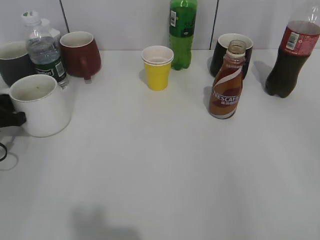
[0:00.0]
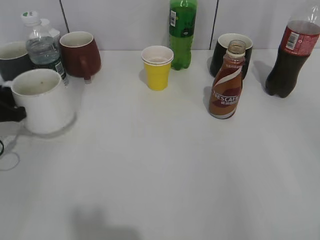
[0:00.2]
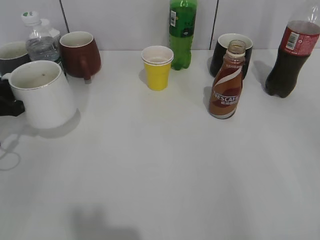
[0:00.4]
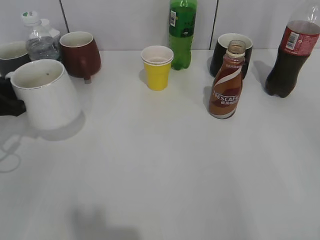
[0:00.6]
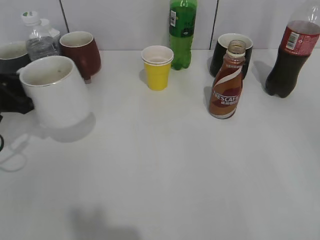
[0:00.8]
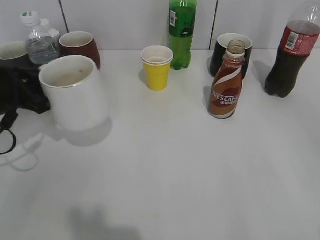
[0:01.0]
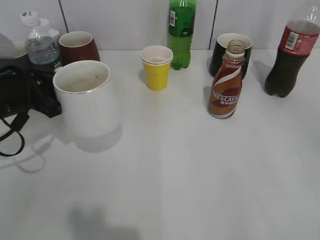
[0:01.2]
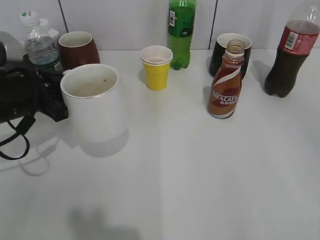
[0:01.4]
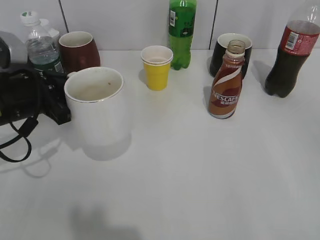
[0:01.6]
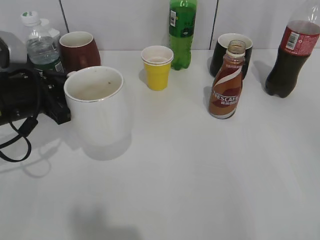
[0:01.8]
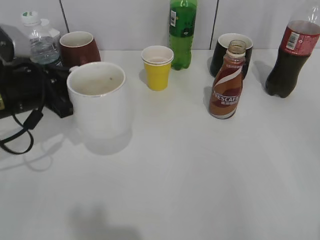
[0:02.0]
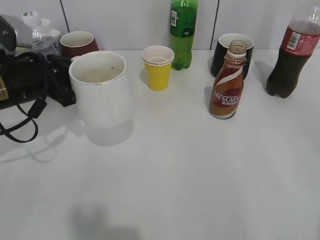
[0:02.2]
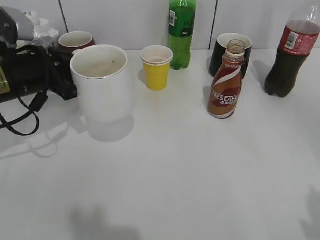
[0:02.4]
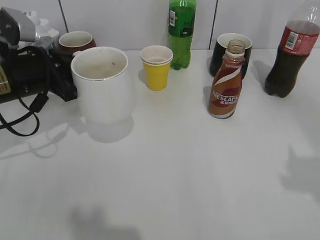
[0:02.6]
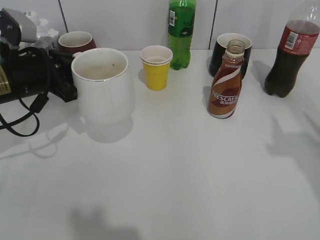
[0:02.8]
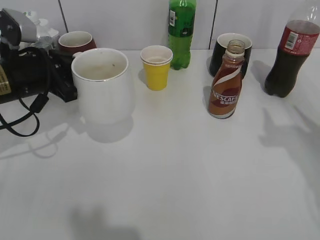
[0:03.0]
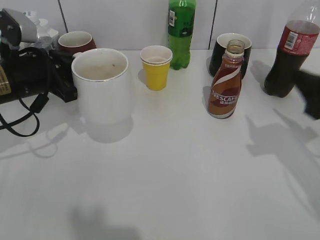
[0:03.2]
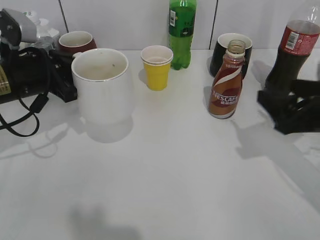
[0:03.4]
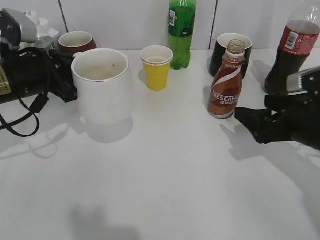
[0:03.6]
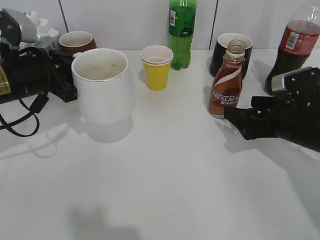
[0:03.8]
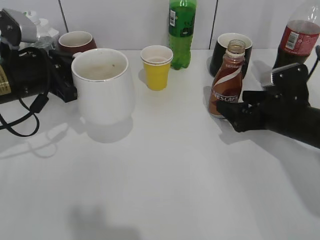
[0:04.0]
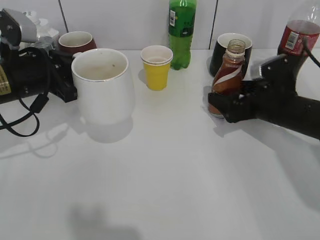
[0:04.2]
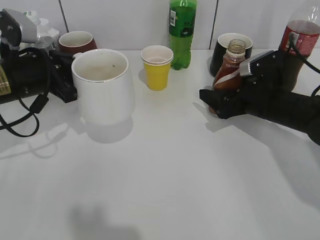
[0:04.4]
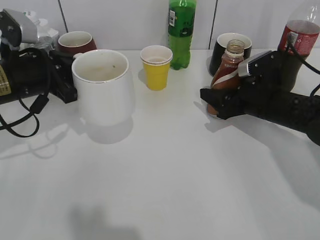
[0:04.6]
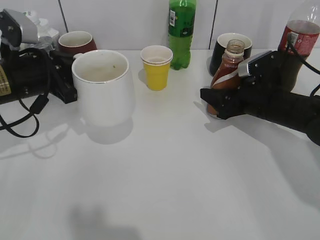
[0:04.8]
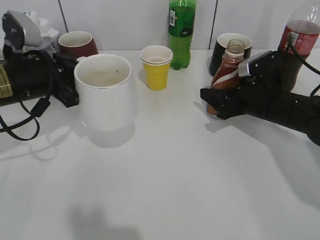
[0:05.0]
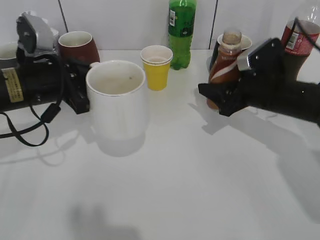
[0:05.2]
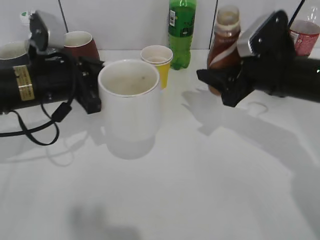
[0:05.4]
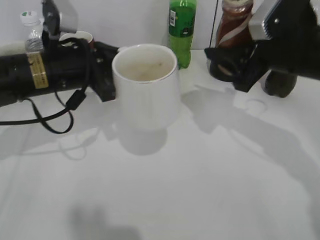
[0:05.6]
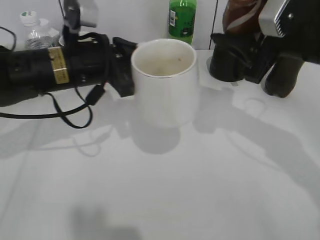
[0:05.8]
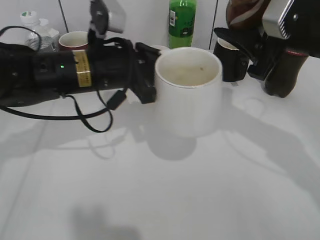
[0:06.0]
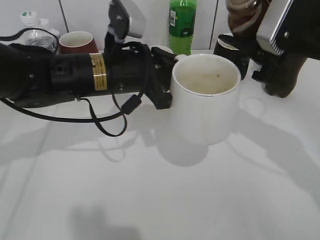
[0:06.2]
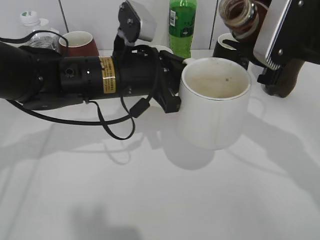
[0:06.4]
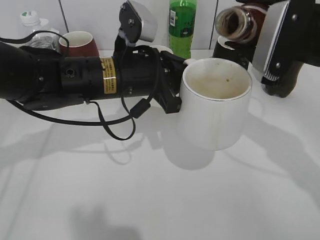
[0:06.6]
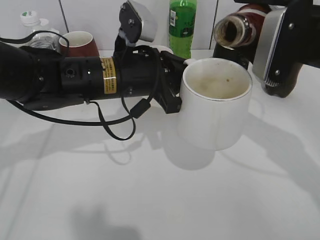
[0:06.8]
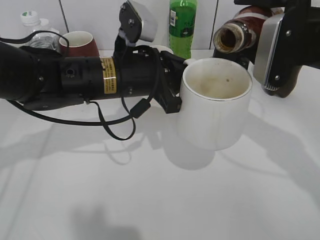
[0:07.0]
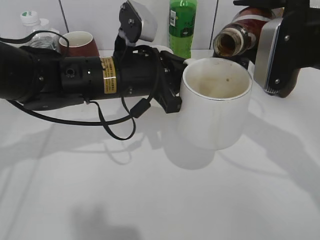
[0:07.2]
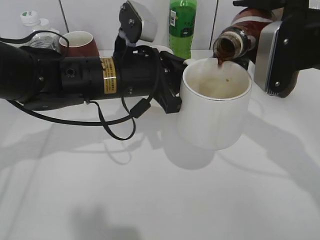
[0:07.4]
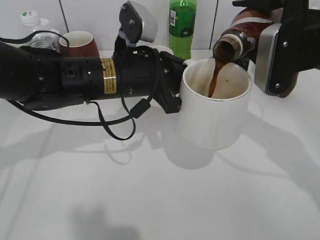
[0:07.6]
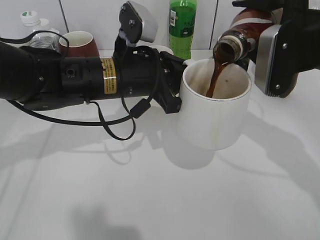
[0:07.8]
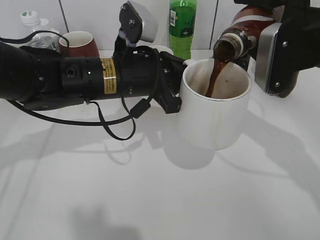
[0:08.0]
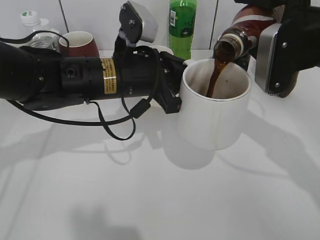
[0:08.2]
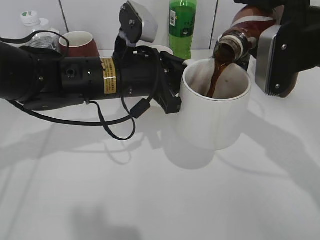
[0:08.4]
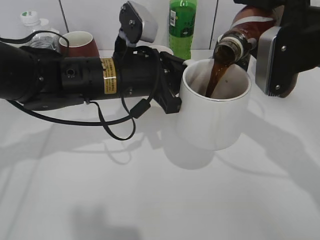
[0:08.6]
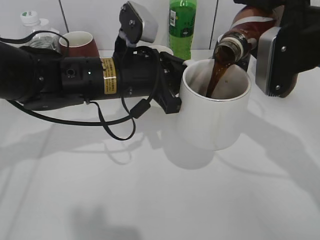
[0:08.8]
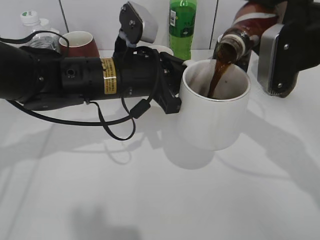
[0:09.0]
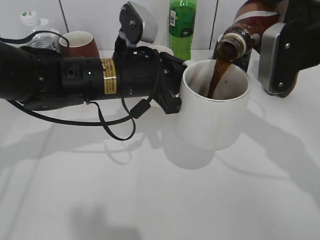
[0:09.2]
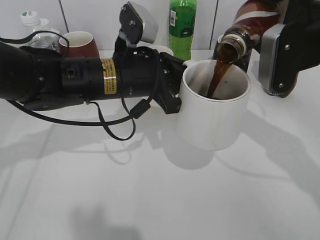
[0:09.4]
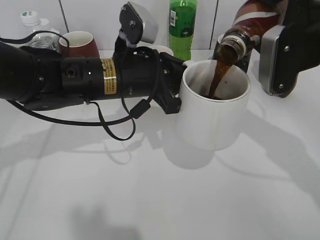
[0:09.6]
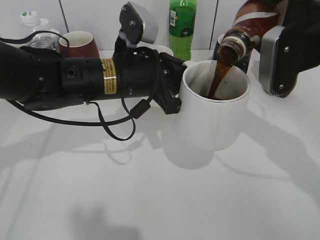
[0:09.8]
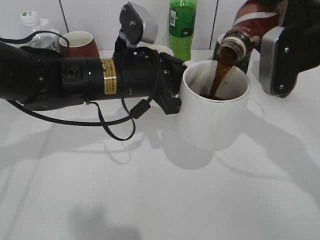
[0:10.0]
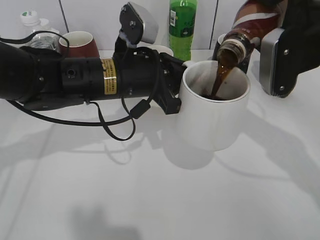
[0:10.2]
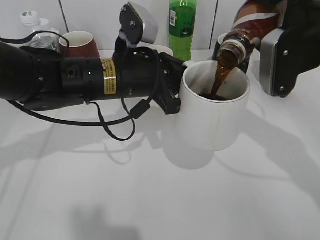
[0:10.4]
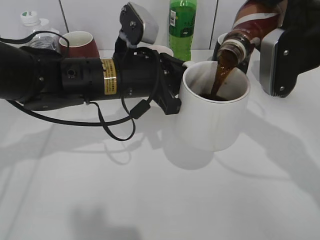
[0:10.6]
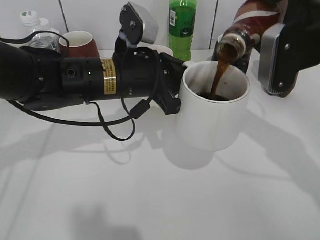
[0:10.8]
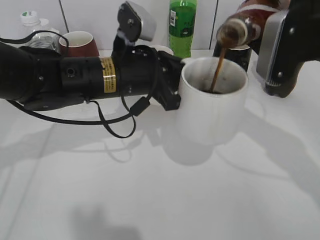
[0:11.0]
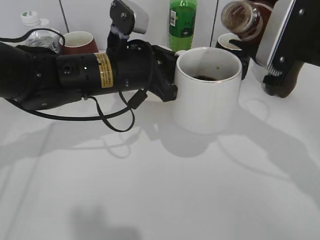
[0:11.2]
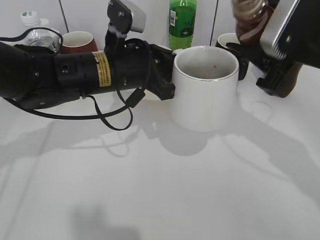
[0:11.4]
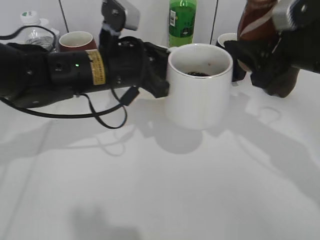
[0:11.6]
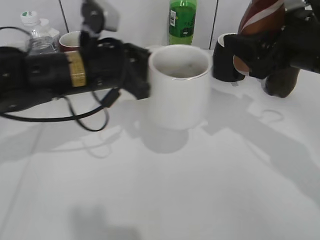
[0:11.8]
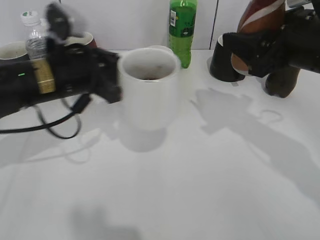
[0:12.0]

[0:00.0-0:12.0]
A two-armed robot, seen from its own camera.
Step, 0:00.0 to 0:02.0: Lift the white cup with left gripper.
Step, 0:02.4 to 0:05.0: Grasp the bottle with coffee with right gripper.
Step, 0:05.2 to 0:11.0: Pour the coffee from bottle to cup with right gripper.
0:00.0 to 0:01.6: The left gripper goes approximately 10 cm to the right and upward.
0:01.6 to 0:03.0: The right gripper heads forward, covering some 20 cm.
0:03.0 to 0:04.4: The right gripper moves downward, forward and to the left, some 25 cm, and opens its fingers.
0:04.4 to 0:06.0: The right gripper goes some 15 cm upward, and closes. The left gripper travels to the right by approximately 10 cm.
0:07.6 to 0:10.4: The grippers move only a little.
0:10.4 to 0:12.0: The left gripper is displaced to the left by about 10 cm.

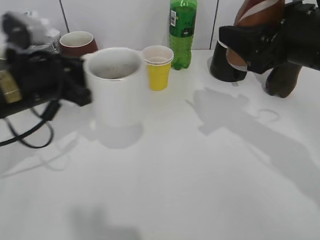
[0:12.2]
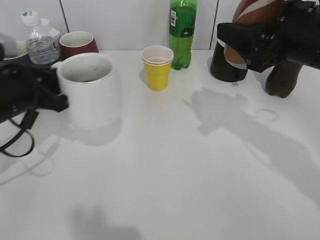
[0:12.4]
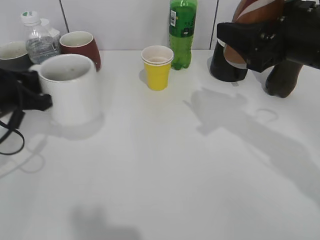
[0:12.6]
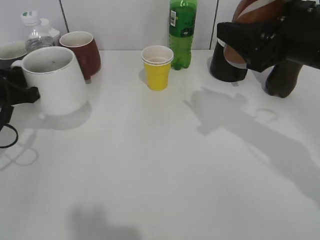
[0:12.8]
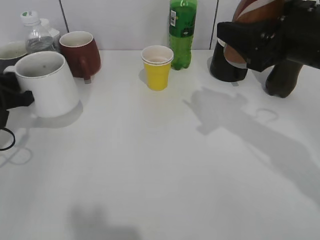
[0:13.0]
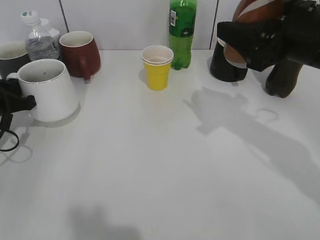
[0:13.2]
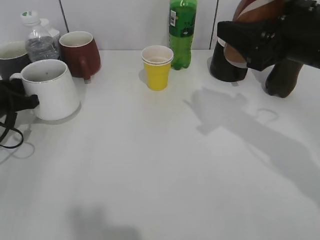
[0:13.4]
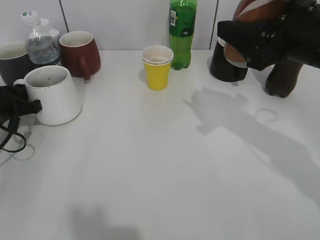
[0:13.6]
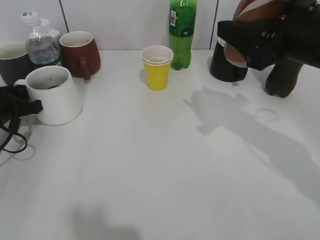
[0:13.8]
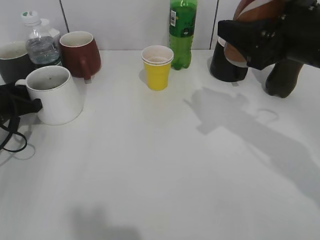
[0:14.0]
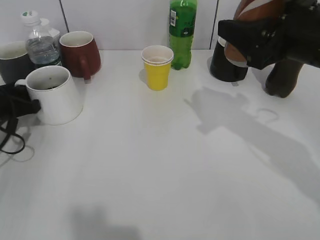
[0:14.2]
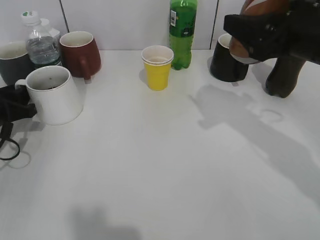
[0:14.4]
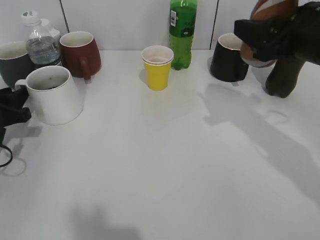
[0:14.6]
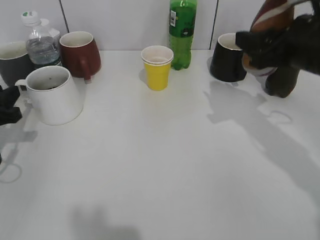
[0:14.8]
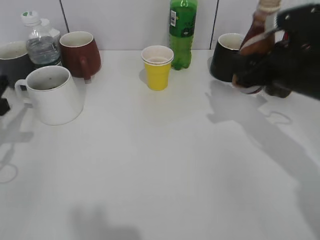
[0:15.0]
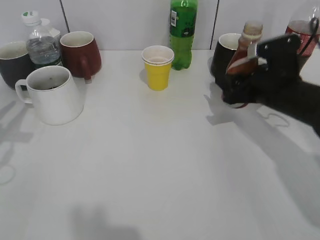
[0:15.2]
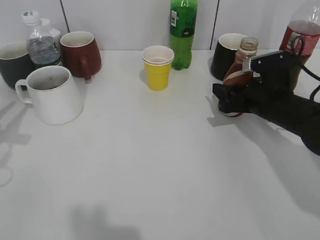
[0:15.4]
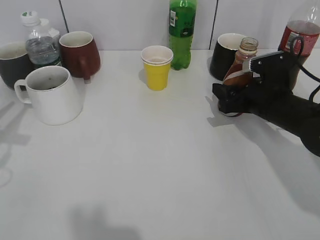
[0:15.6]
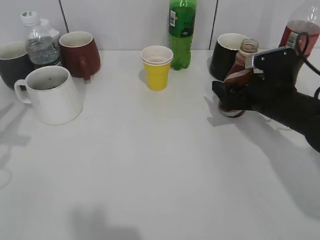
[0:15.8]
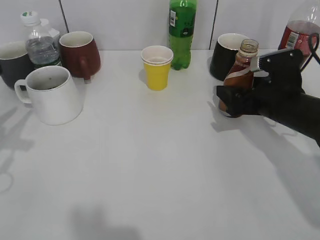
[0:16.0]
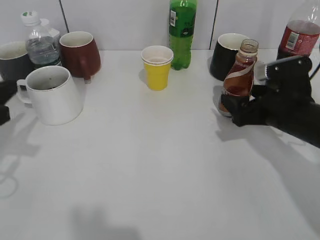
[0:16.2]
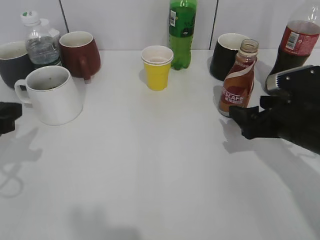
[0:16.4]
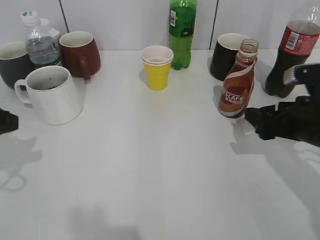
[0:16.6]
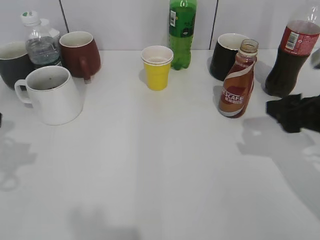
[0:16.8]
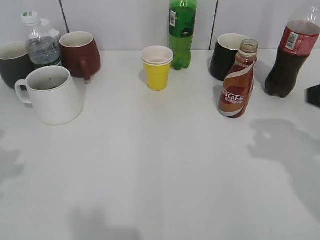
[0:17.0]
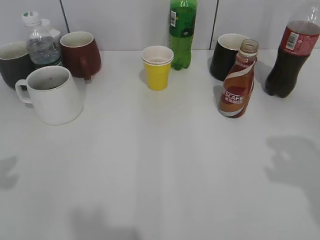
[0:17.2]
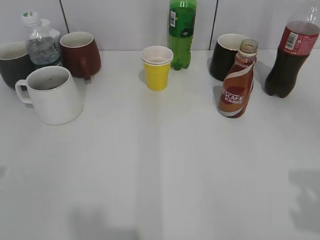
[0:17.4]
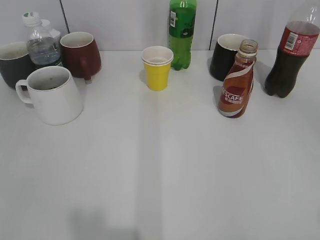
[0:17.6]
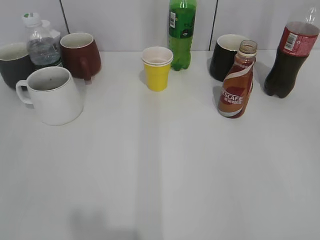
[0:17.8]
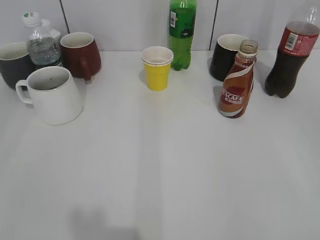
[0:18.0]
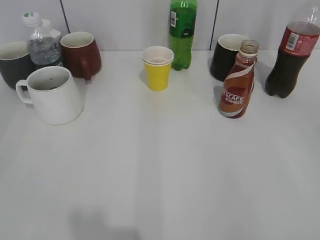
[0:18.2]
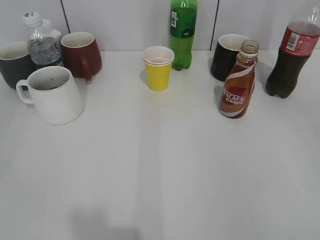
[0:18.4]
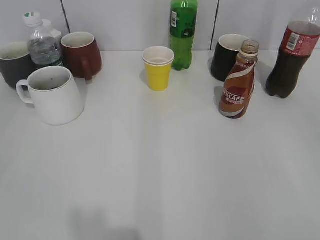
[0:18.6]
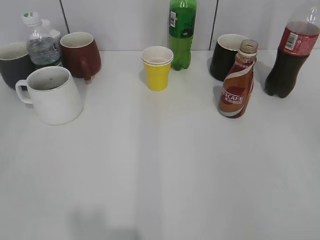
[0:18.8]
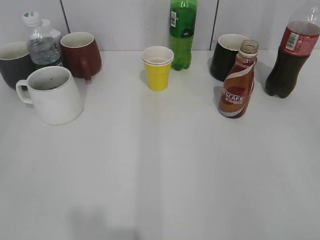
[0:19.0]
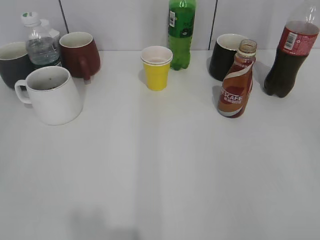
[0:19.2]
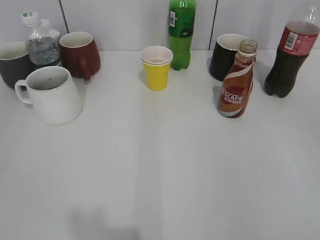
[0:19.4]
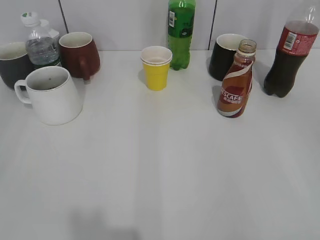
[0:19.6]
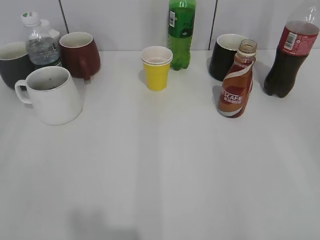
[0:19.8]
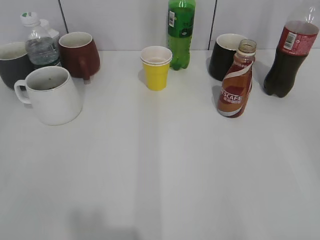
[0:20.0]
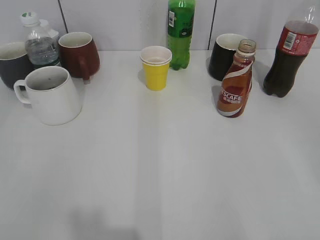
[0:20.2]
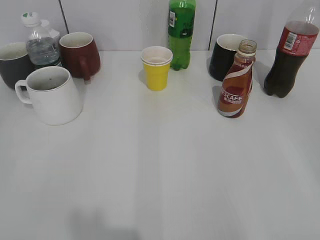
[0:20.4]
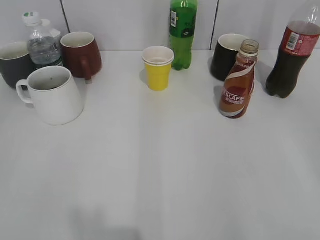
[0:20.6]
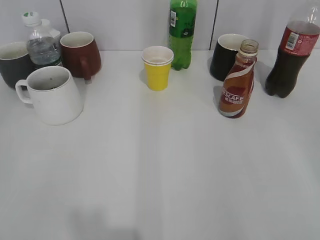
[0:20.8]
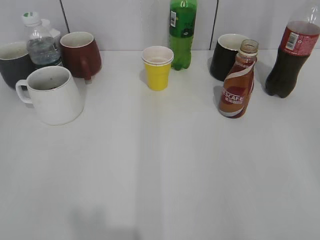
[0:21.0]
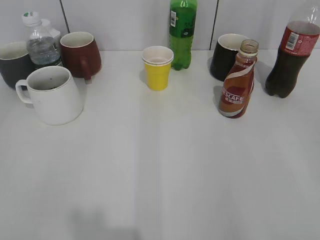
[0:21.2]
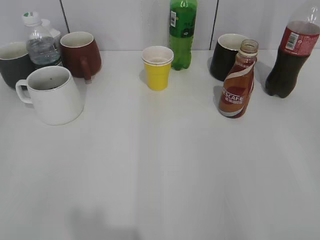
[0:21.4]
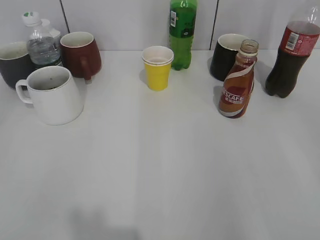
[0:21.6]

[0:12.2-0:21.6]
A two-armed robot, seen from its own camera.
Step, 0:12.2 to 0:14.6: Place the white cup on the table with left gripper.
Step, 0:14.8 to 0:16.2: Place the coffee bottle on the table with right gripper.
0:12.2 to 0:13.8: The left gripper goes about 15 cm to the left and downward.
0:13.8 to 0:15.4: The right gripper goes some 15 cm downward and forward. The left gripper heads upward and backward, covering approximately 15 cm, and opens.
0:15.4 to 0:17.0: The left gripper travels upward and backward by approximately 10 cm; the right gripper heads upward, backward and to the right, covering some 20 cm, and opens its fingers.
0:17.0 to 0:18.4: Both grippers travel together backward, some 15 cm.
0:18.4 to 0:21.6: The grippers make only small movements.

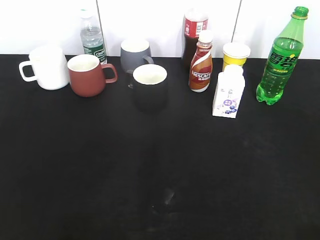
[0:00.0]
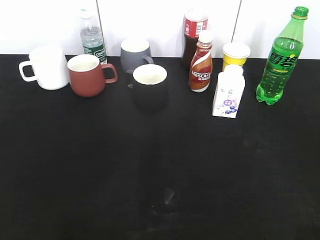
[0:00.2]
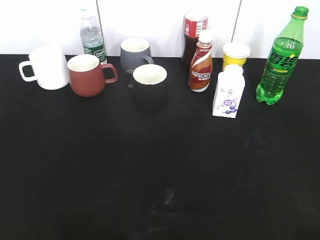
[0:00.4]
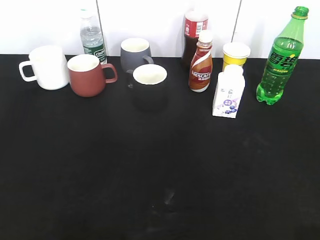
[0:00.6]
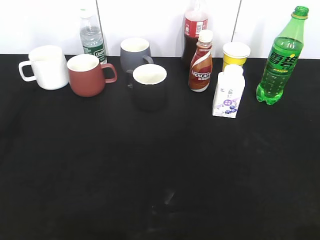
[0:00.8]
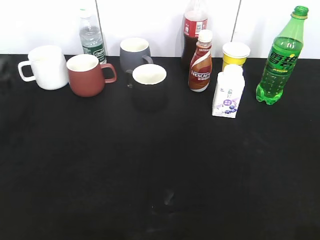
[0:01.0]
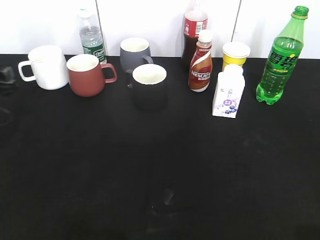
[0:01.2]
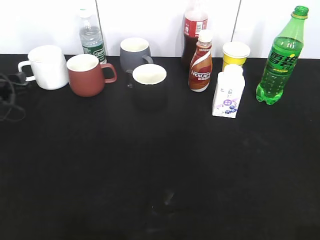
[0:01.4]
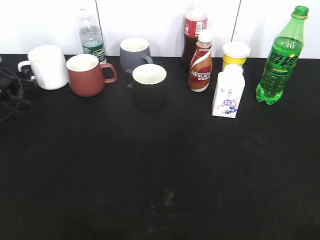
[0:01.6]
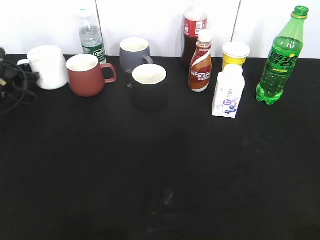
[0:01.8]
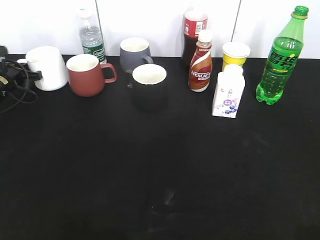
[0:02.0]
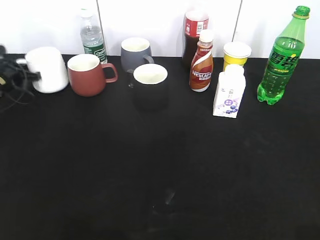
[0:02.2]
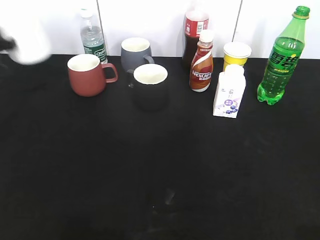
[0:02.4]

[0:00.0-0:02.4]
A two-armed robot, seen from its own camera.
0:00.0 to 0:01.2: The left gripper goes approximately 40 cm forward and downward.
0:01.2 to 0:02.4: The left gripper heads upward, covering some 10 cm, and closes its fingers.
